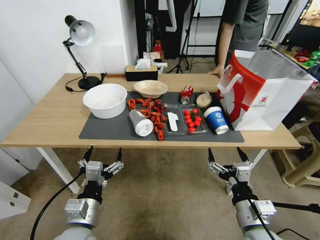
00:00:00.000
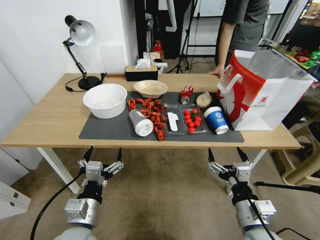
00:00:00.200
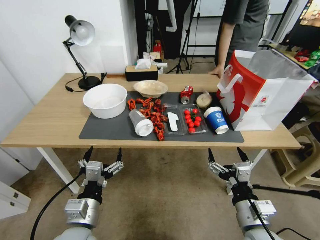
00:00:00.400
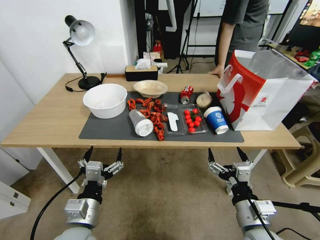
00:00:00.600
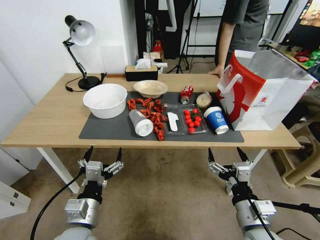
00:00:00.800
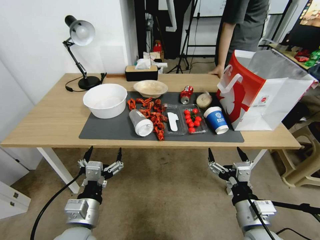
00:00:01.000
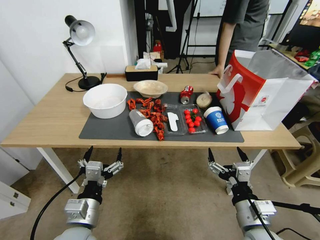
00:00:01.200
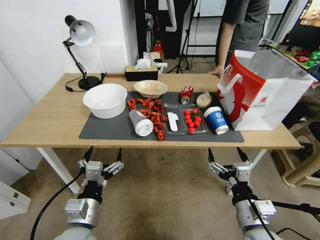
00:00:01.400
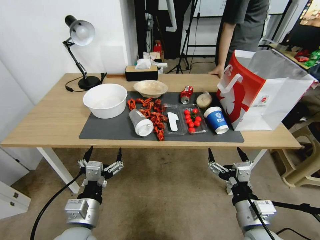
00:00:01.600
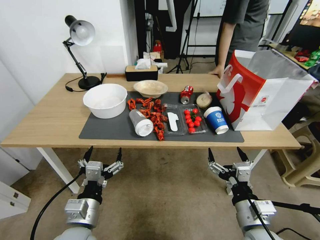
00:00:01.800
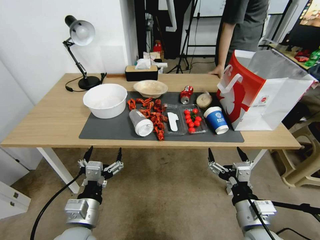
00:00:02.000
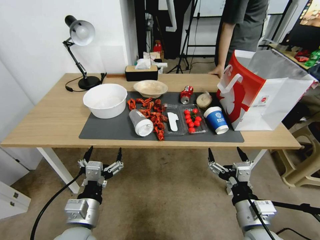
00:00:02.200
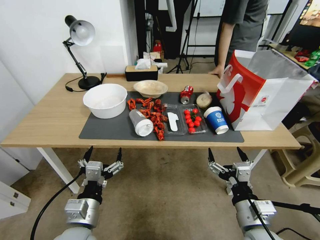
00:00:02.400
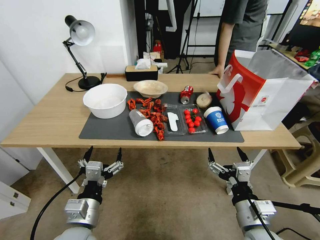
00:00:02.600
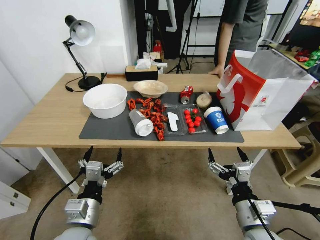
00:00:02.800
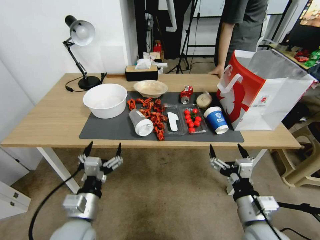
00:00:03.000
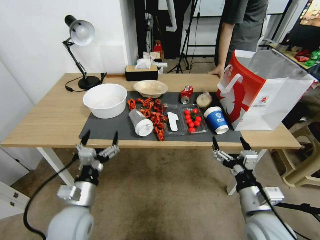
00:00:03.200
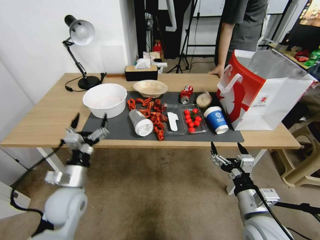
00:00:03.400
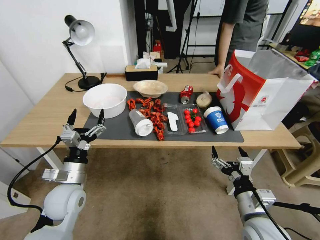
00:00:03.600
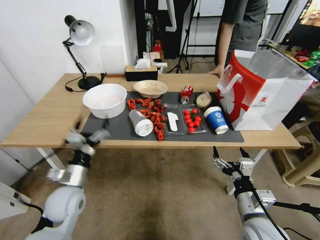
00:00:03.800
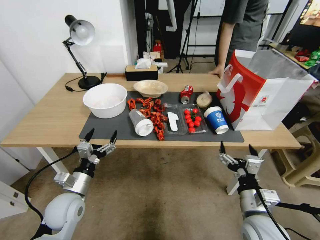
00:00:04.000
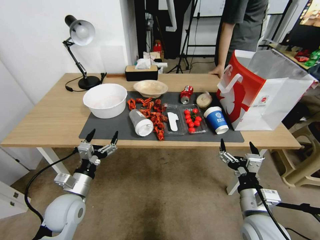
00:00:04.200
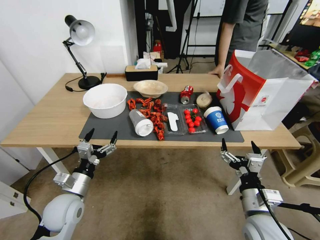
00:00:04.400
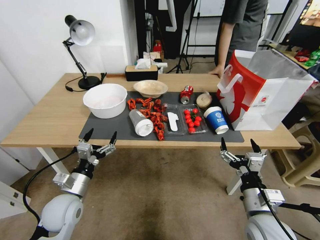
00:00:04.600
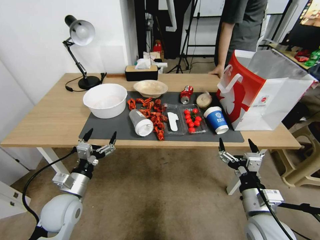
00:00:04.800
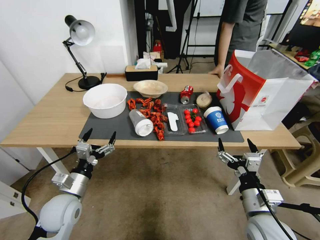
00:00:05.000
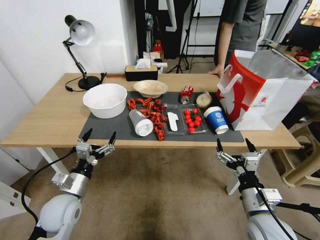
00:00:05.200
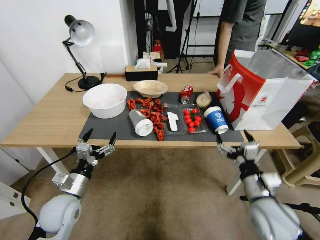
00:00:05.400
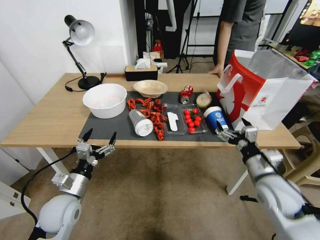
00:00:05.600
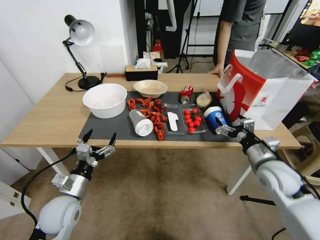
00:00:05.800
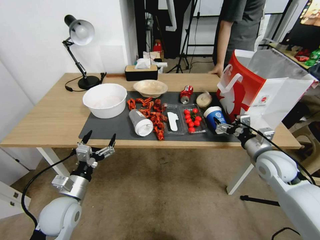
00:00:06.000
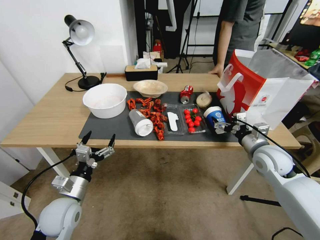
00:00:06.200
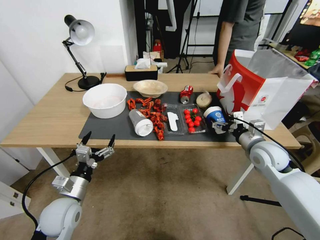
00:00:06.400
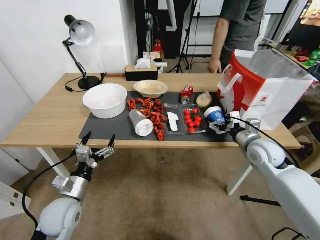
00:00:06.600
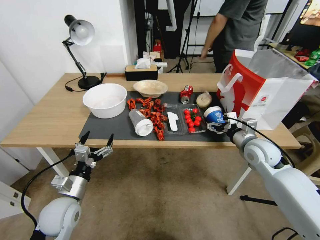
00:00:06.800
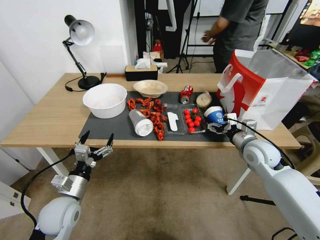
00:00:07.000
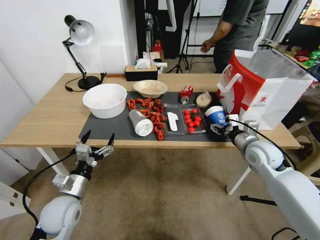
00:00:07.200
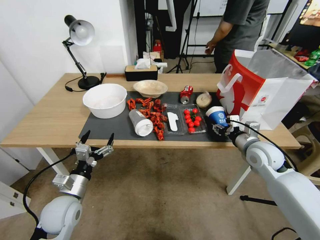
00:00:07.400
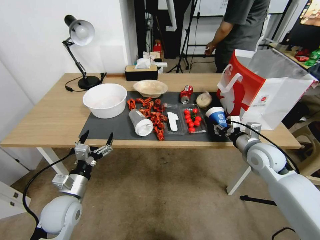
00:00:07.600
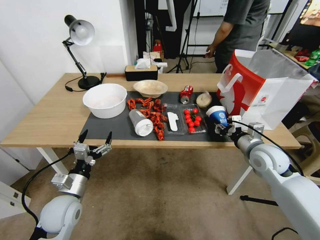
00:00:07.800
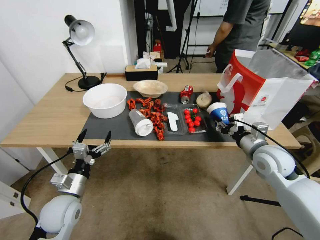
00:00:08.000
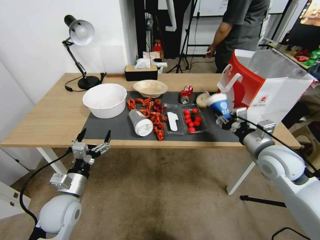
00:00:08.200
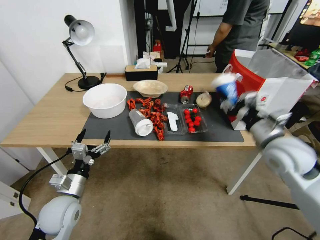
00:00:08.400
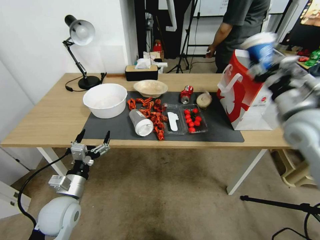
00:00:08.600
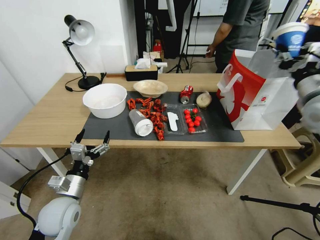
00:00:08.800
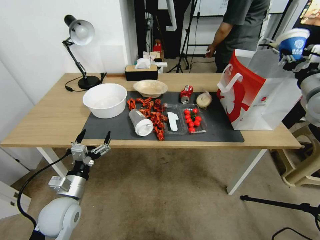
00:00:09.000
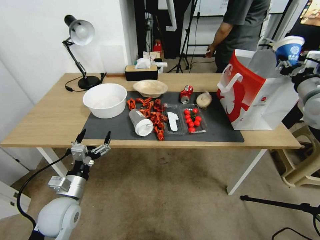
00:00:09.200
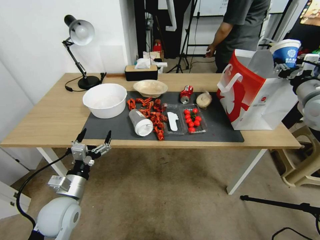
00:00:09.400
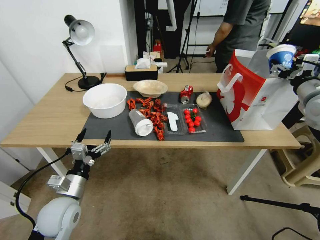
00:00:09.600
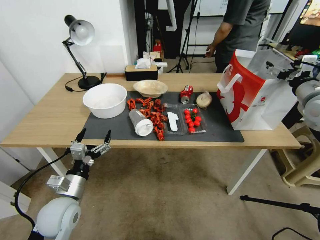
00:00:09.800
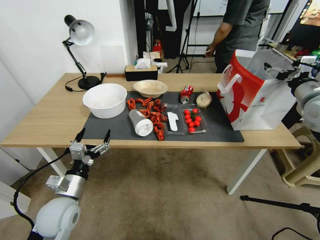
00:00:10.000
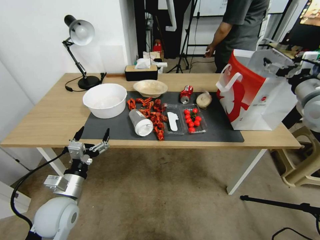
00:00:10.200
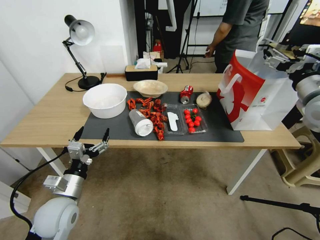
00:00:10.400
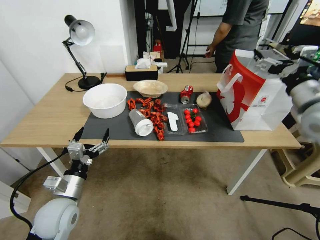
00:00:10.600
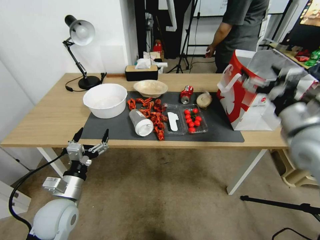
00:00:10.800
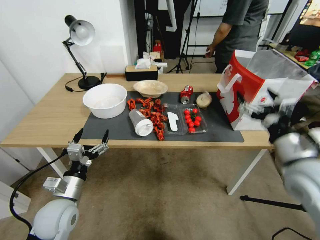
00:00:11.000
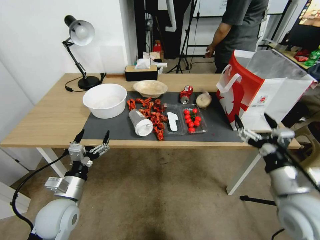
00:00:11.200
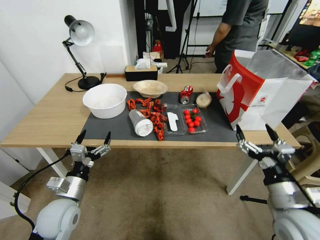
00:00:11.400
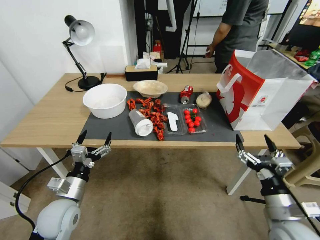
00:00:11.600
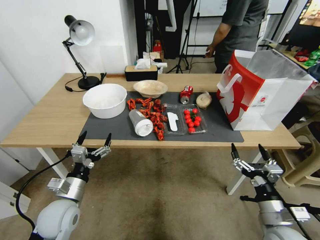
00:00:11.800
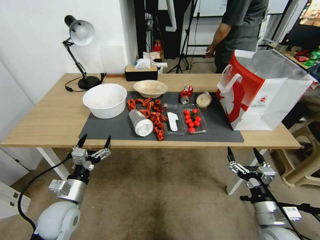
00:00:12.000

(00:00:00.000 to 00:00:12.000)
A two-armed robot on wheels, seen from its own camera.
00:00:01.600 - 00:00:03.000: Both grippers stay about where they are.
00:00:03.000 - 00:00:04.400: The left gripper shifts approximately 10 cm forward and to the left.
00:00:04.400 - 00:00:06.000: The right gripper shifts approximately 20 cm forward and to the right.
00:00:06.000 - 00:00:07.600: The right gripper closes up.
00:00:07.600 - 00:00:09.000: The right gripper is displaced upward and to the right by roughly 20 cm.
00:00:09.000 - 00:00:10.400: The right gripper opens up.
00:00:10.400 - 00:00:12.000: The right gripper moves downward and backward, some 35 cm.

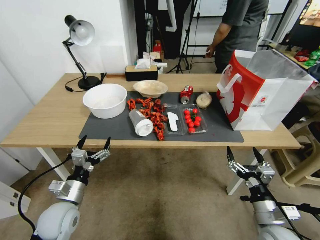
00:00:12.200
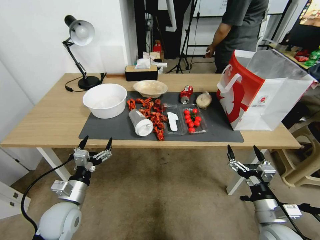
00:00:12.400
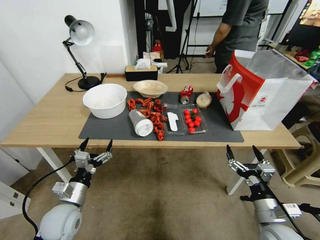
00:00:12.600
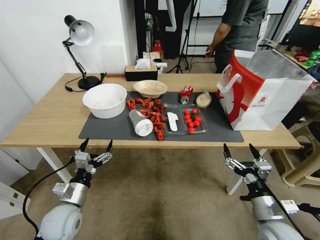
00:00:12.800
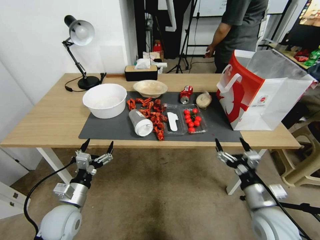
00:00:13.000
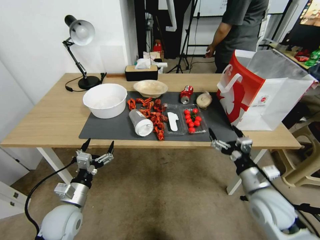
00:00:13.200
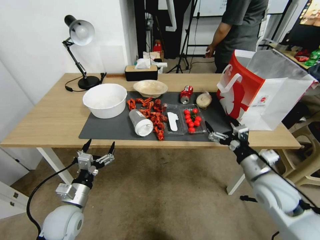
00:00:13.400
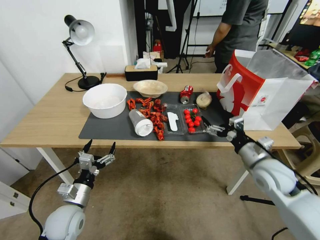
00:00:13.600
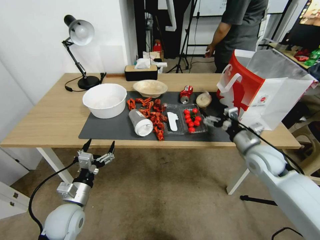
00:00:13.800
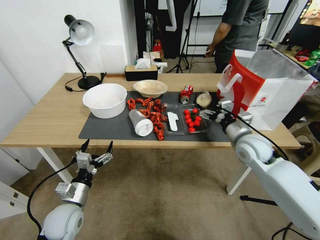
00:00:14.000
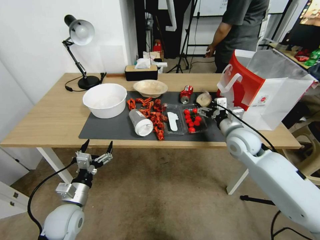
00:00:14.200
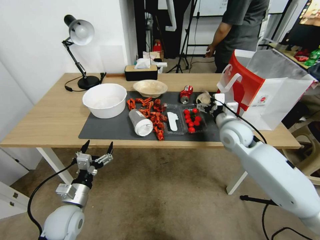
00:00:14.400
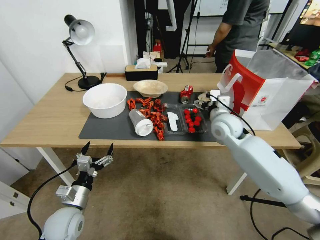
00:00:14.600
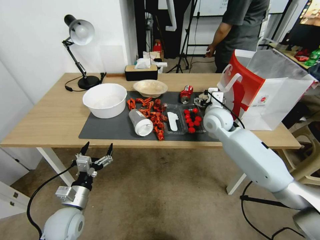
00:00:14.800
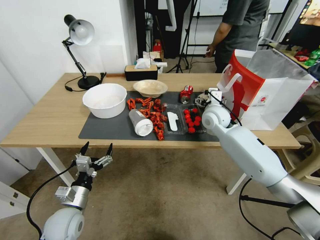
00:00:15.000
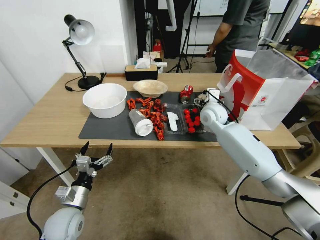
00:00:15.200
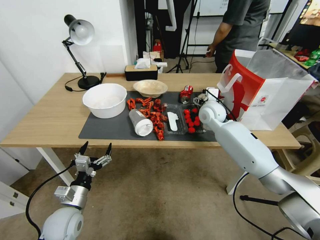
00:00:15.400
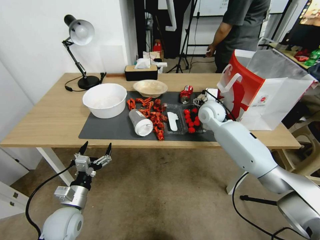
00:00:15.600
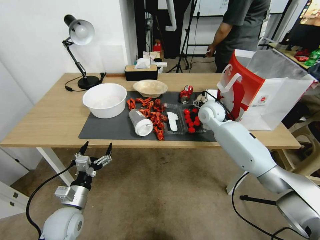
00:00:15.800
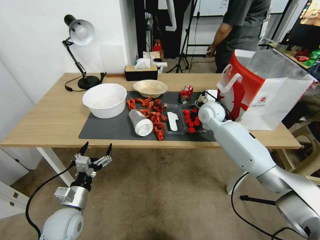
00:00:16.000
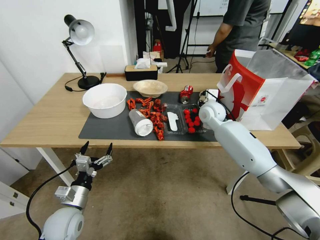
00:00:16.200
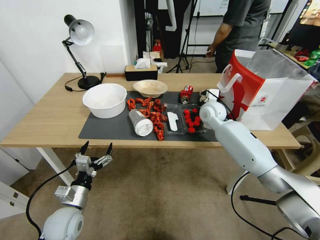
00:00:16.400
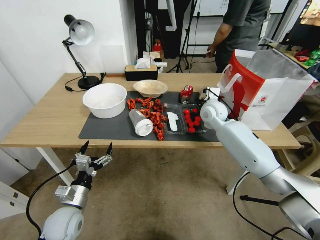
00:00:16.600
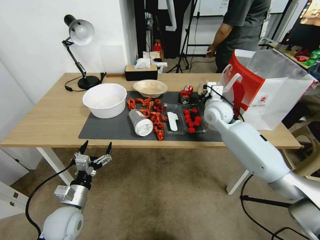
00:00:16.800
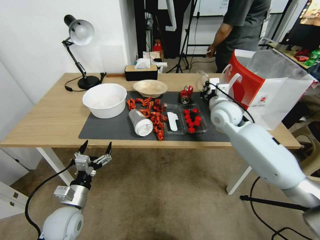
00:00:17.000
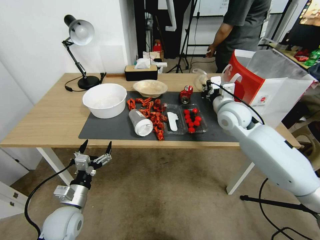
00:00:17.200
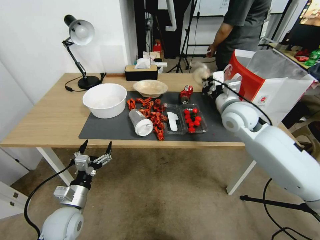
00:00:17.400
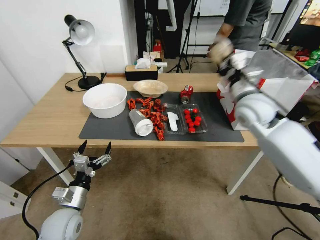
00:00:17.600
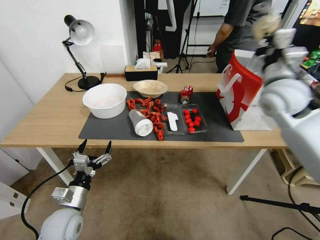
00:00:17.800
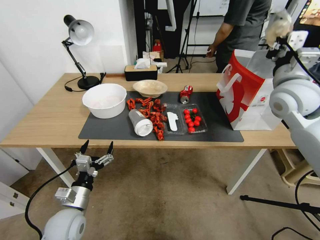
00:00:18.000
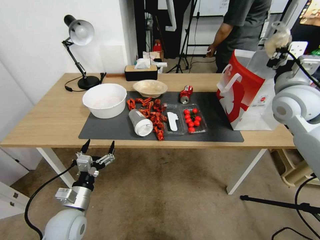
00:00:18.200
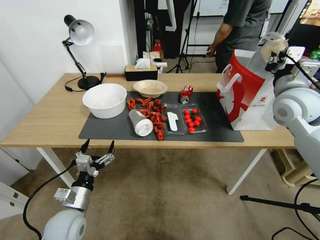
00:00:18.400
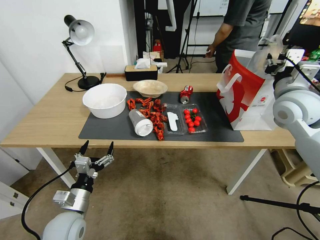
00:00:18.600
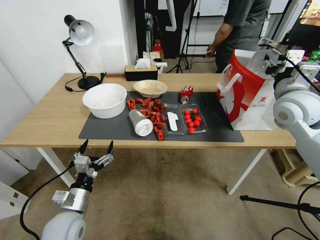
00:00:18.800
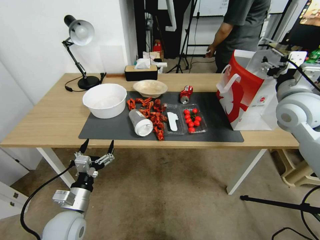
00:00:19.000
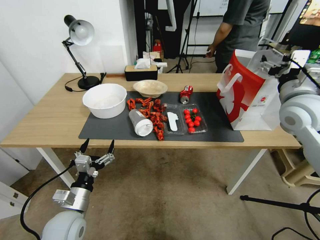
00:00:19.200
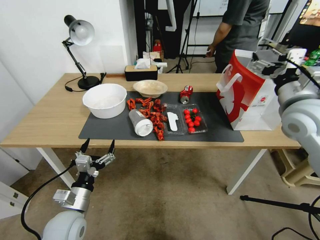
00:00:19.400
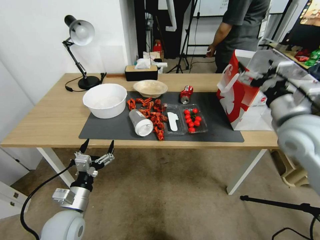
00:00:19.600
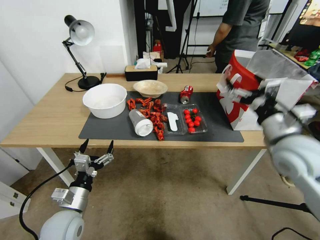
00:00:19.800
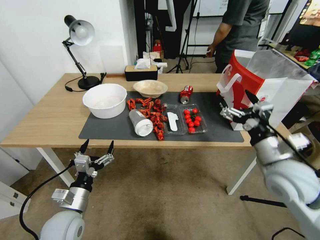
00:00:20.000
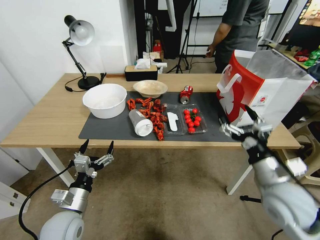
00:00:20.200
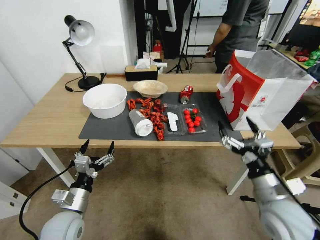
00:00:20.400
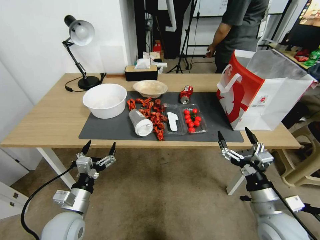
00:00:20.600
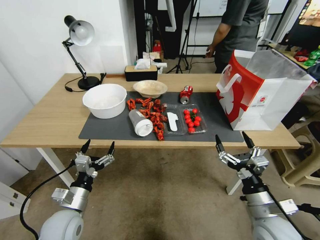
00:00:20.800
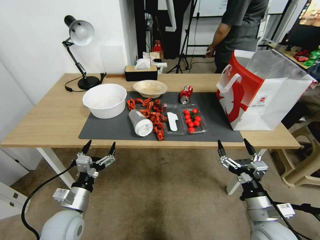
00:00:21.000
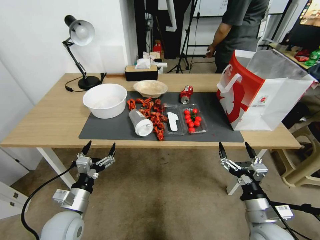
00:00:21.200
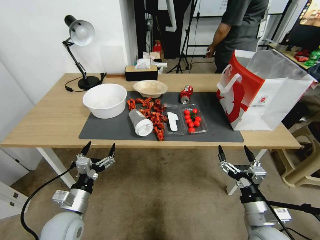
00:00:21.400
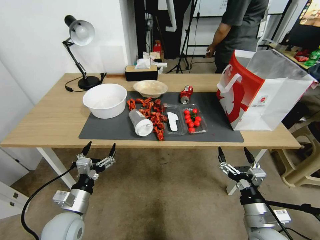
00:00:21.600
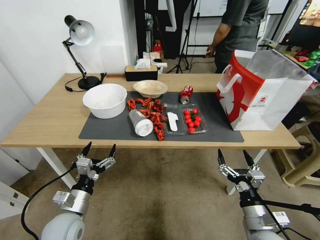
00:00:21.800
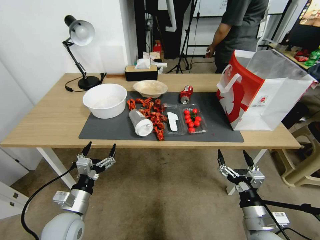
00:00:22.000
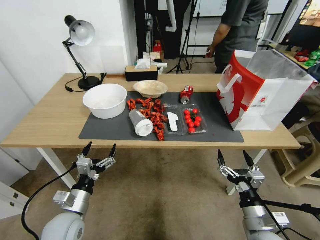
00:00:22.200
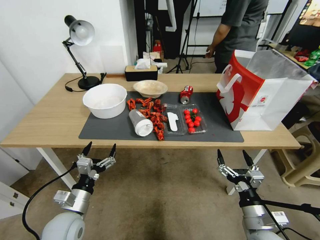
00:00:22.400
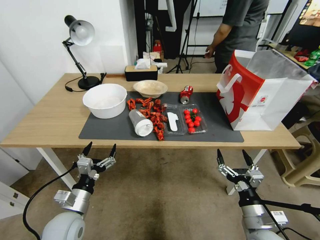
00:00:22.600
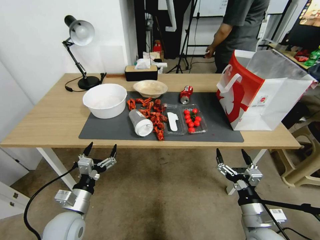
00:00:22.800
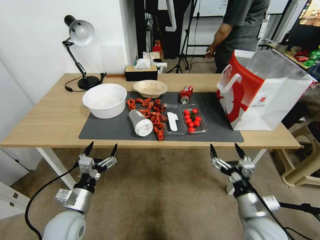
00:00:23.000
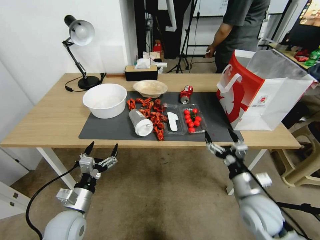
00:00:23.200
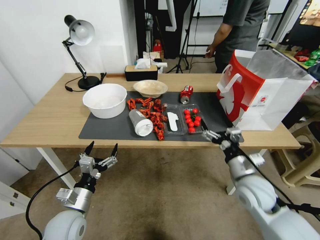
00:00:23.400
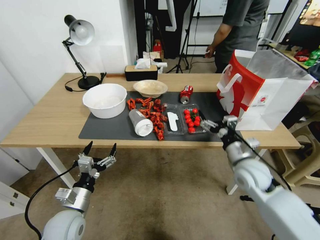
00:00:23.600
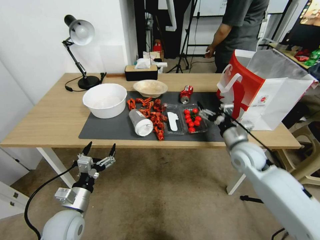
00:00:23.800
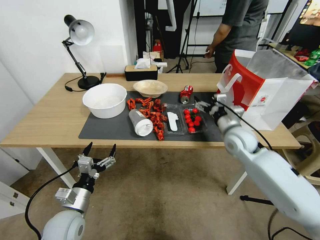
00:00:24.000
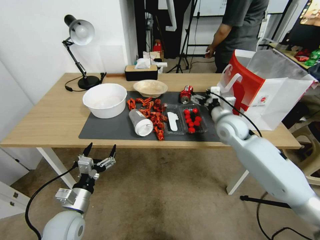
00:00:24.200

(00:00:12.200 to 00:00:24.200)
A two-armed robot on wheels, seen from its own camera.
00:00:12.200 - 00:00:13.800: The right gripper shifts approximately 20 cm forward and upward.
00:00:13.800 - 00:00:15.200: The right gripper travels forward and to the left by approximately 20 cm.
00:00:15.200 - 00:00:16.600: The right gripper closes.
00:00:16.600 - 00:00:18.200: The right gripper shifts about 25 cm to the right, upward and backward.
00:00:18.200 - 00:00:19.800: The right gripper travels backward and downward by approximately 15 cm, and opens its fingers.
00:00:19.800 - 00:00:21.200: The right gripper travels downward and backward by approximately 25 cm.
00:00:21.200 - 00:00:22.600: The grippers stay close to where they were, moving slightly.
00:00:22.600 - 00:00:24.200: The right gripper goes roughly 35 cm forward and upward.
